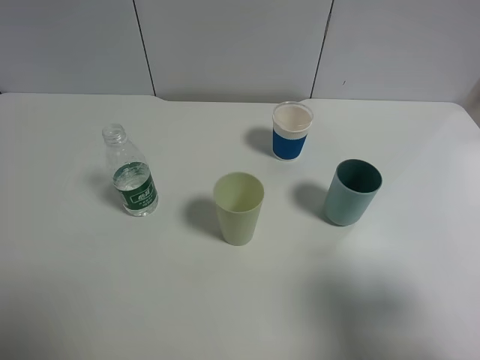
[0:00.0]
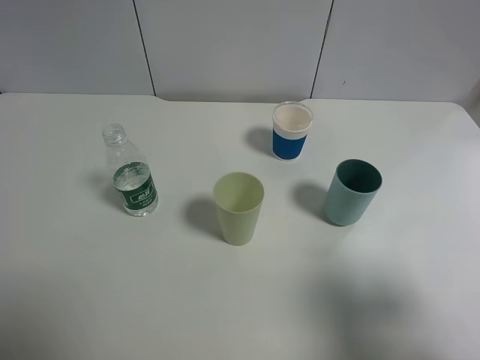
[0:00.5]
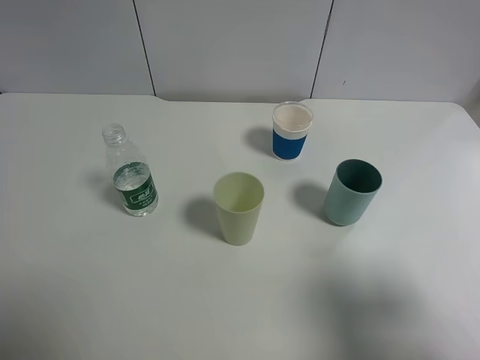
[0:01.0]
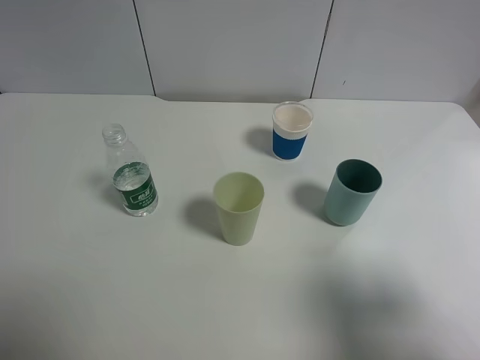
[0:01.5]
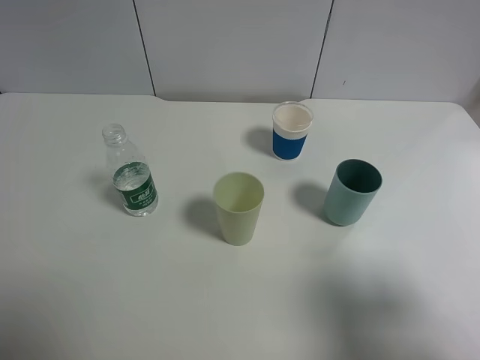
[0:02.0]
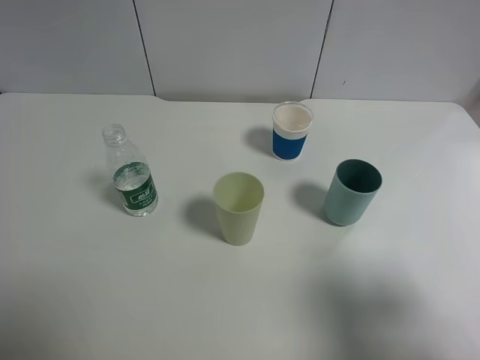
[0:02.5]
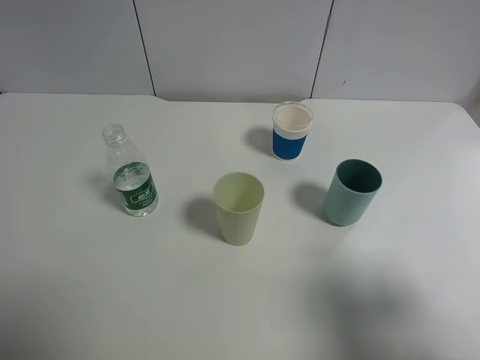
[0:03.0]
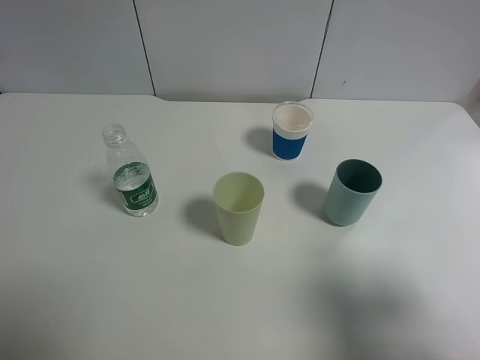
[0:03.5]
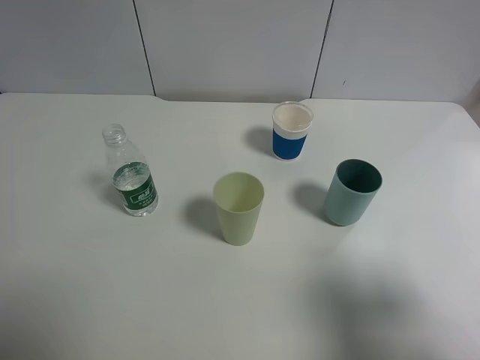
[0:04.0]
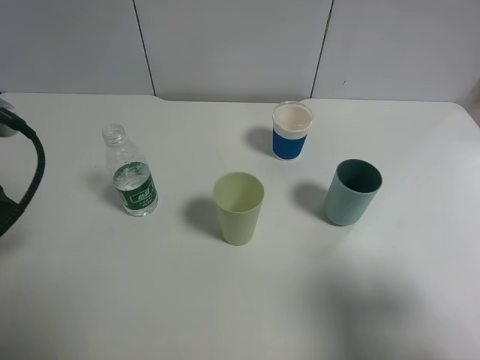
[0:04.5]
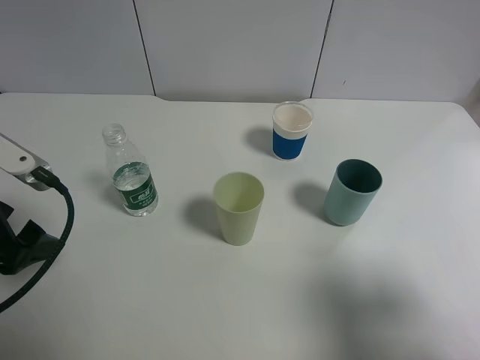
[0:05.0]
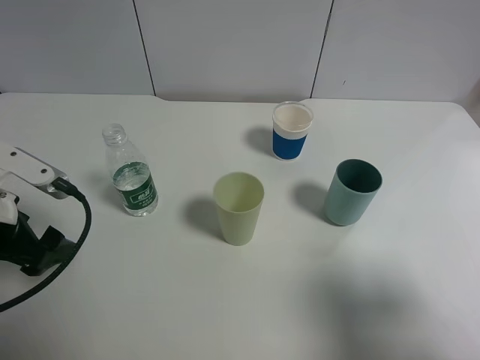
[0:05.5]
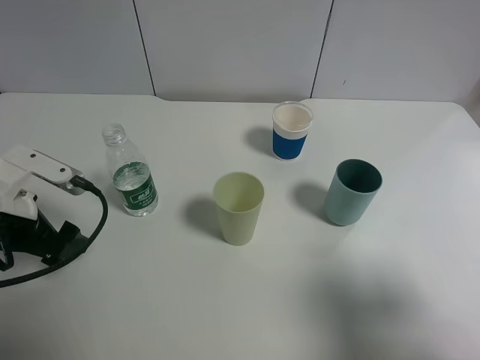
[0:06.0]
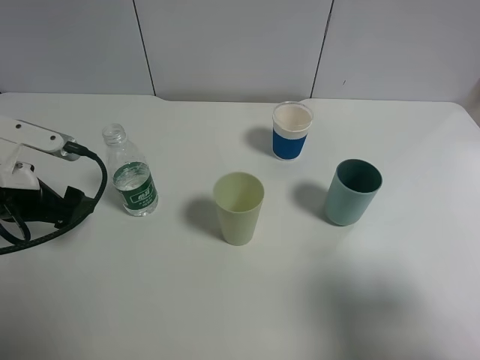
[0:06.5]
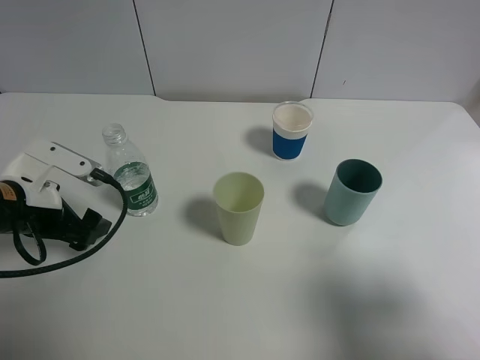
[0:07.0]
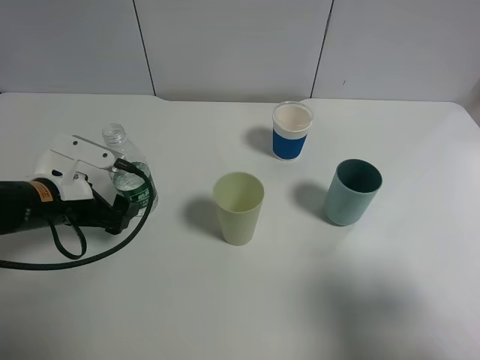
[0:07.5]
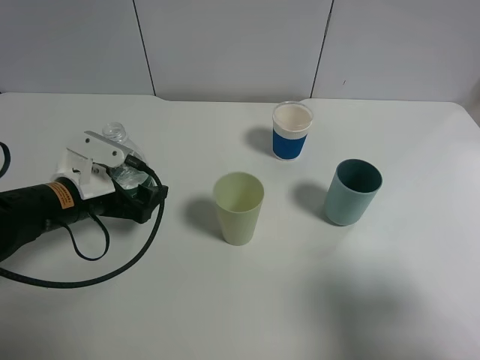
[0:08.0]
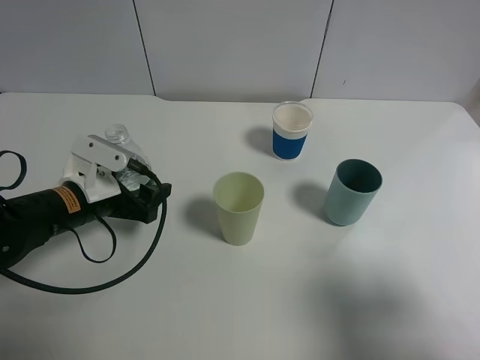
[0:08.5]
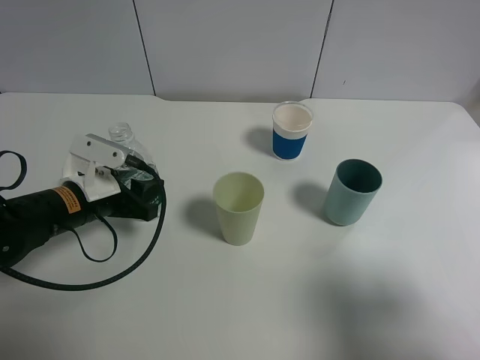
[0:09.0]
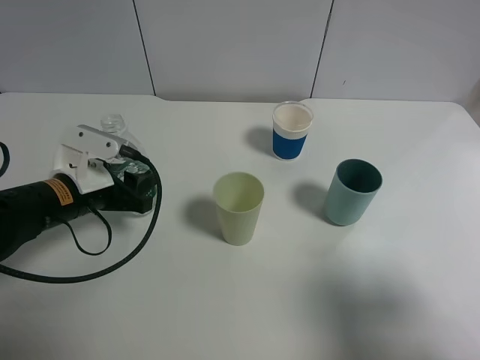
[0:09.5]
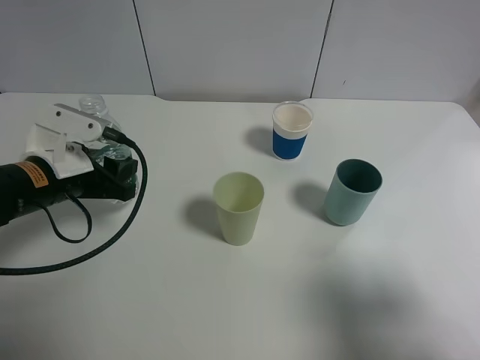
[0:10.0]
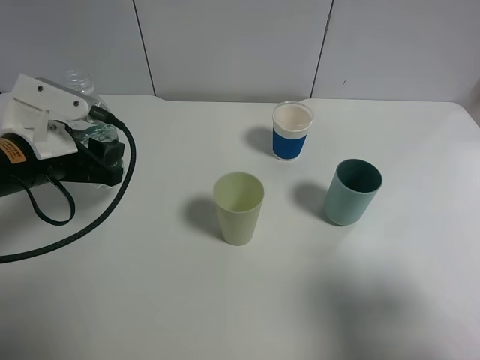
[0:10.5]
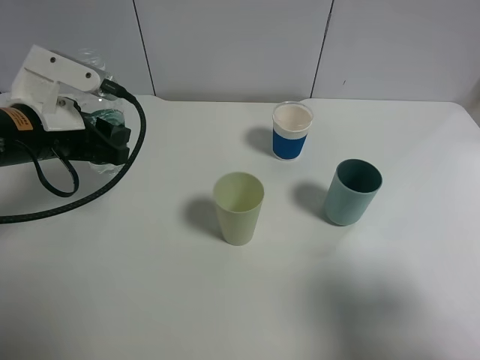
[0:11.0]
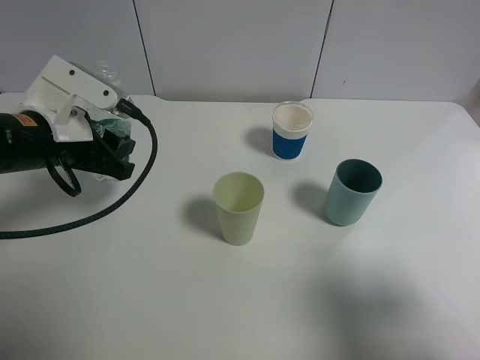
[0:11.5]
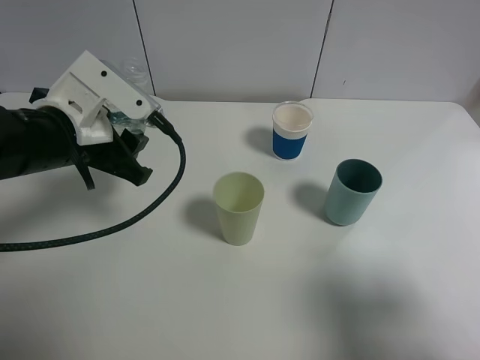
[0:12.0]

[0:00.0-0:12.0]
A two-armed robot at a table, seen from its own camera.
Task of the whole recording: use a gripper to hold the bottle of the drink and pour it into a random cup.
Step, 0:00.0 to 0:09.0: Grasp the mineral water bottle with the left gripper.
0:00.0 to 0:02.0: Both grippers stay about where they are.
0:04.0 to 0:06.0: The left gripper heads downward, covering some 15 cm.
0:06.0 to 0:08.0: The left gripper is displaced to the right by about 5 cm.
0:08.0 to 0:10.0: The left gripper closes up.
0:10.0 to 0:12.0: The left gripper is displaced upward by some 5 cm.

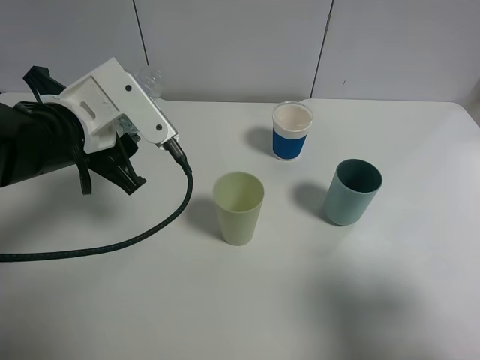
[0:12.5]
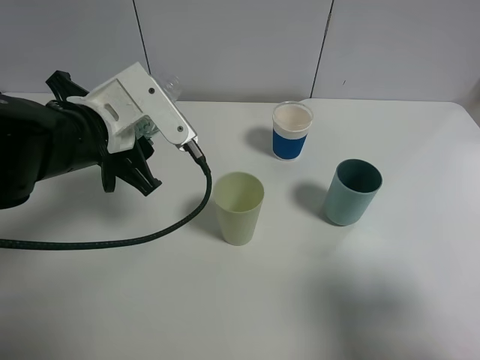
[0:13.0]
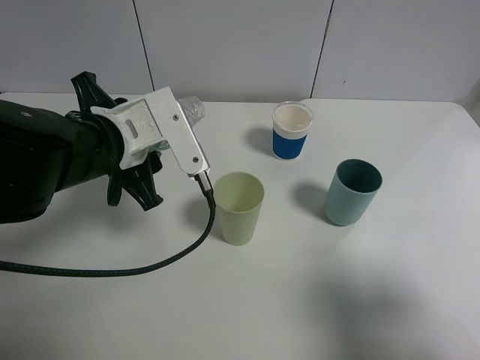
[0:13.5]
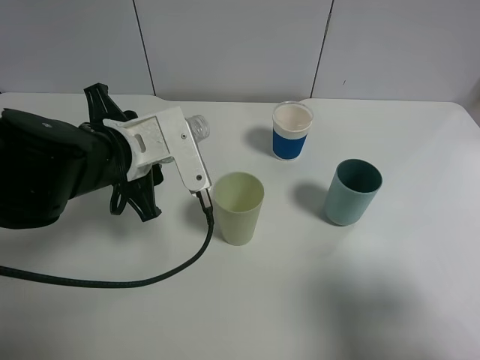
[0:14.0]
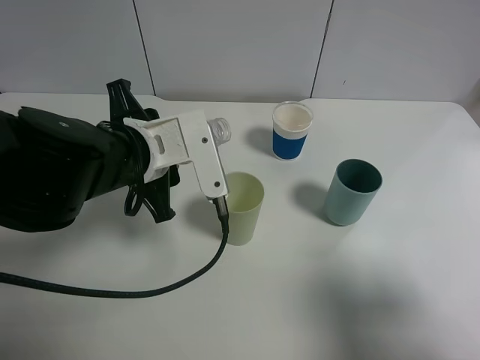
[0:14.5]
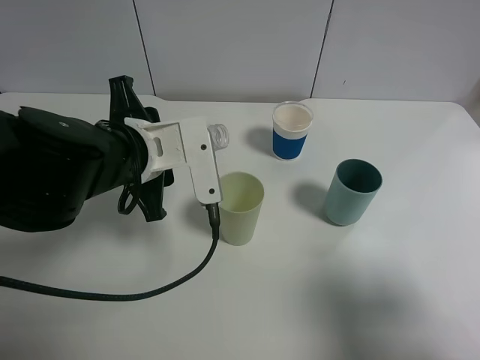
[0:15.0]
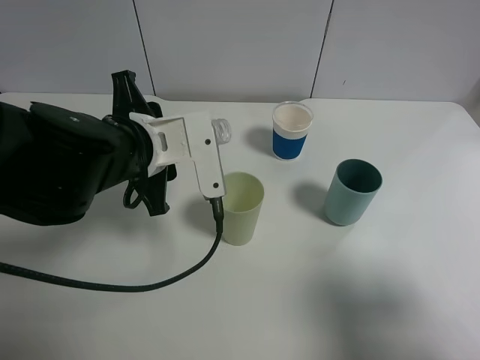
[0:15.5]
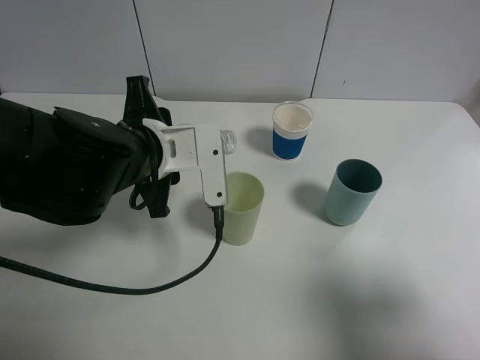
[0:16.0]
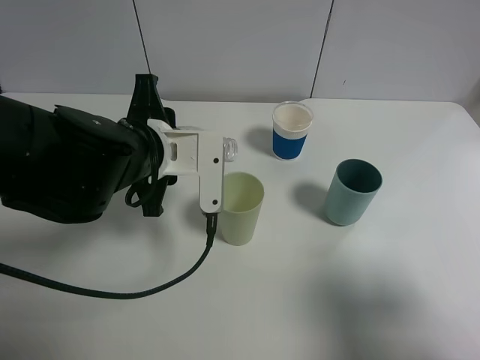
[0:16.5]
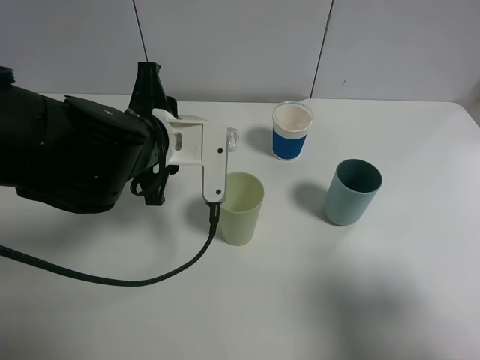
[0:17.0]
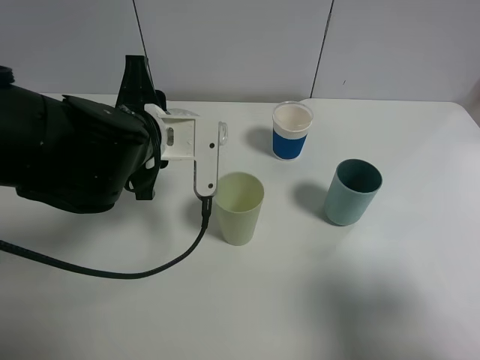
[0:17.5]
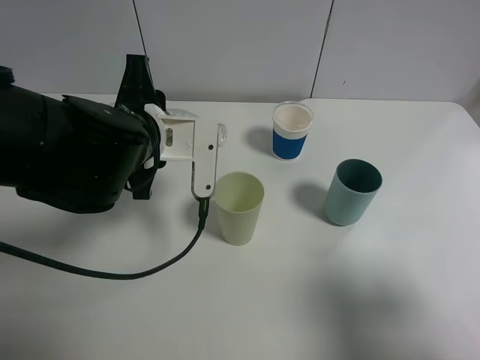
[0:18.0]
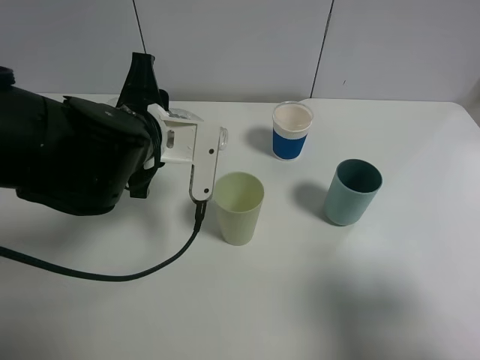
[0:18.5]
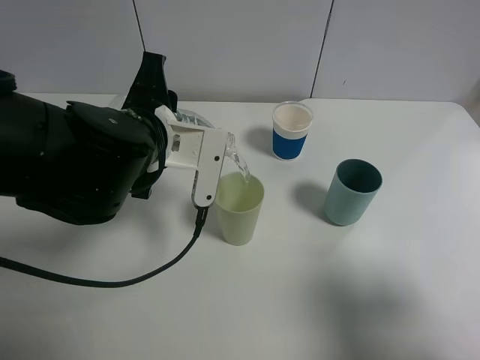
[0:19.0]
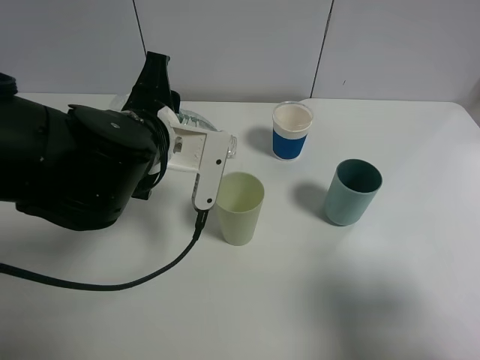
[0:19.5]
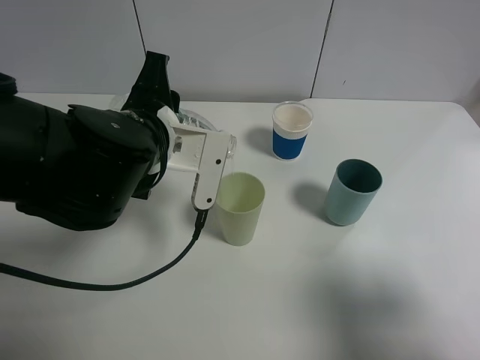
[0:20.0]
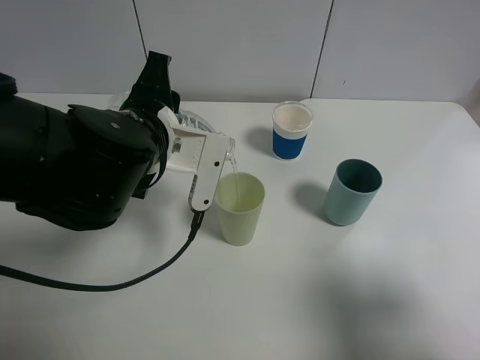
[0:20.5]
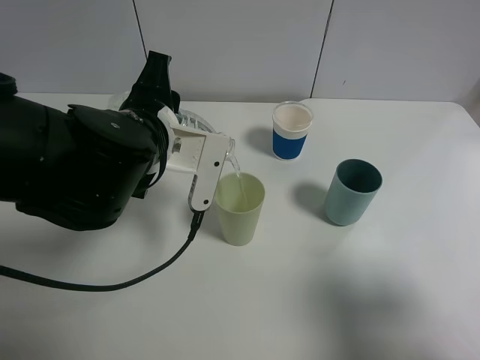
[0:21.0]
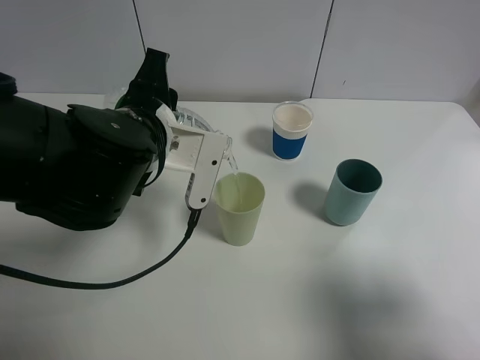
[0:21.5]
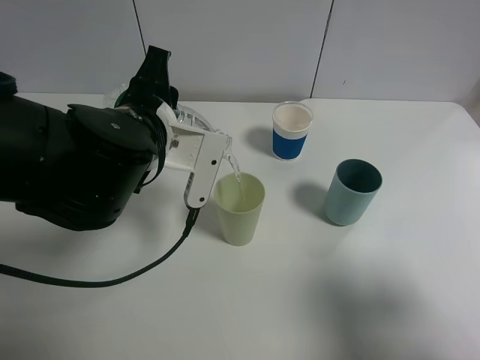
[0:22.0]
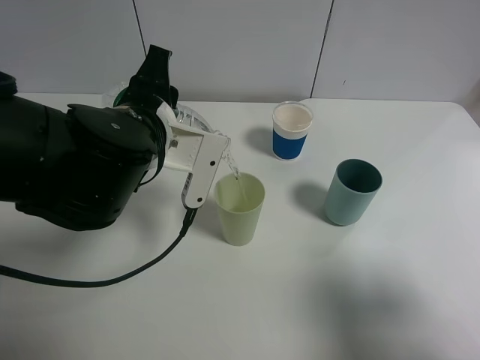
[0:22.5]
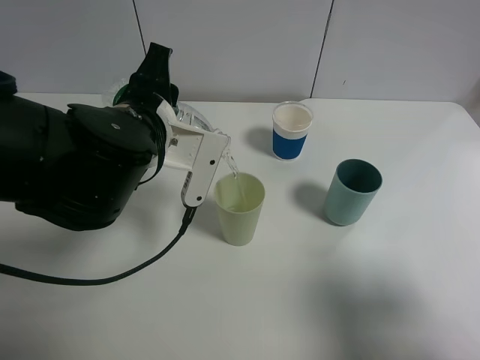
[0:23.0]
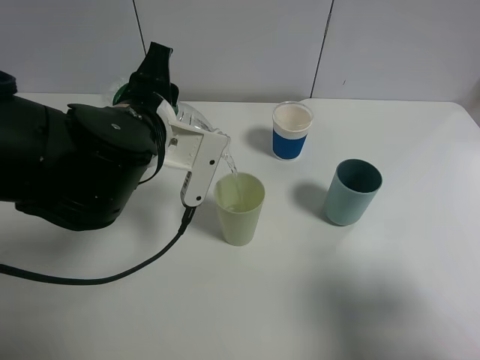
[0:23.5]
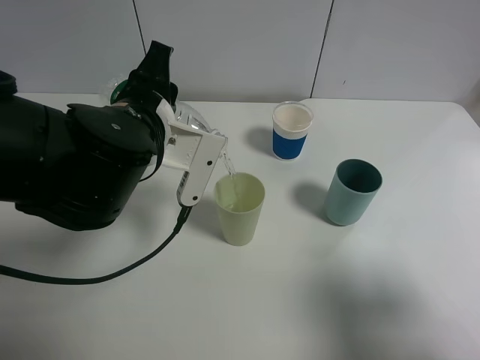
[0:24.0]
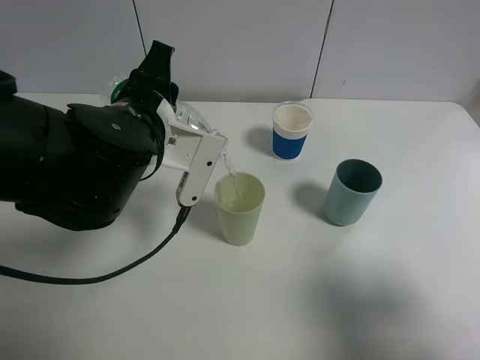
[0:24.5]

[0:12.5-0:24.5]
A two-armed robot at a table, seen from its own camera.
Task of the whole recording: use a gripper to hold the bottle of the drink and pour it into a random cup.
0:12.5 to 0:14.5: The left gripper heads to the right, covering some 5 cm.
0:14.5 to 0:16.5: There are only small adjustments of the grippers.
0:16.5 to 0:20.5: The grippers move only a little.
0:20.5 to 0:22.5: Both grippers stay about where they are.
0:22.5 to 0:24.5: Both grippers stay put.

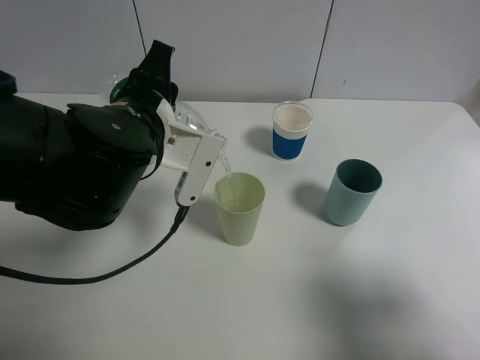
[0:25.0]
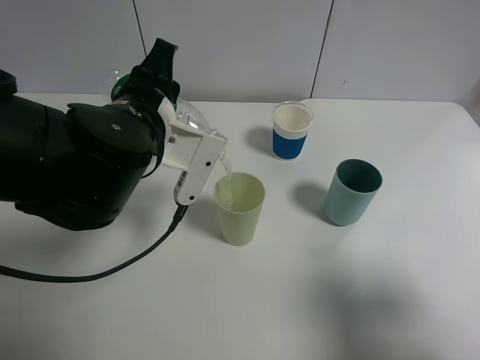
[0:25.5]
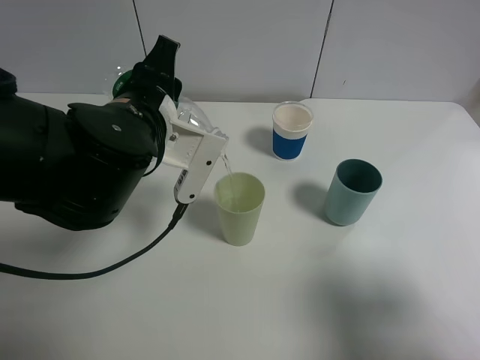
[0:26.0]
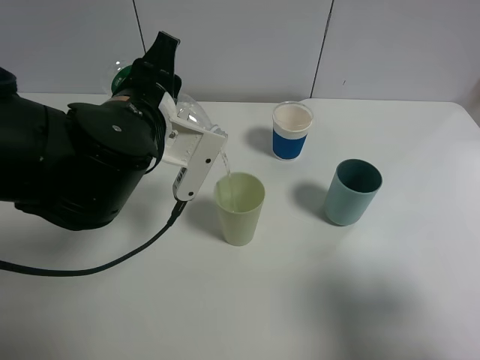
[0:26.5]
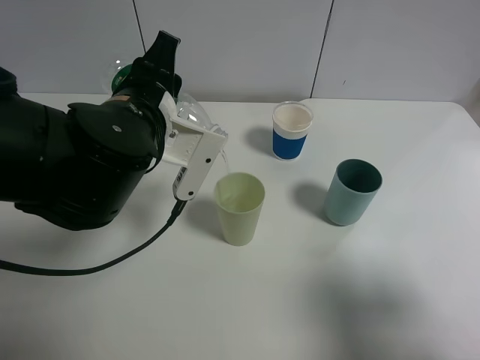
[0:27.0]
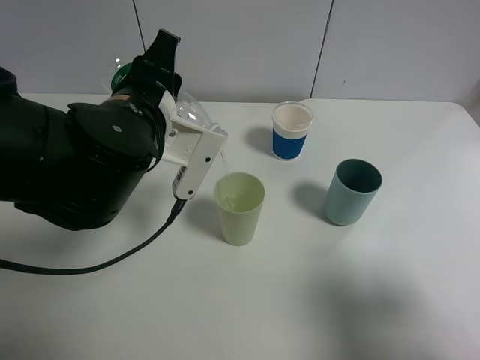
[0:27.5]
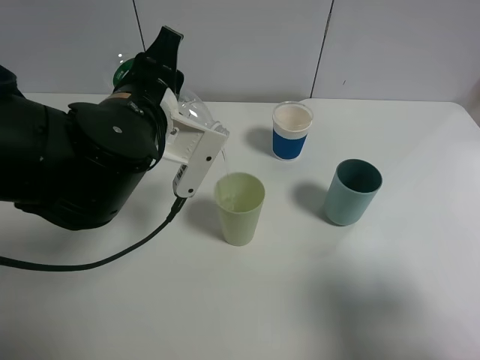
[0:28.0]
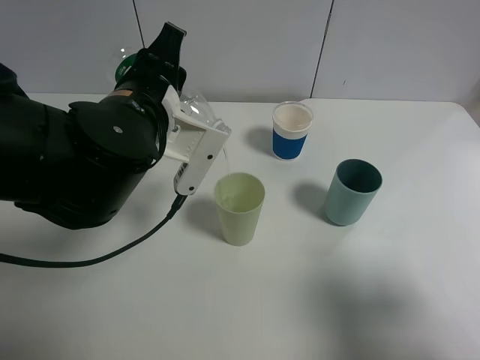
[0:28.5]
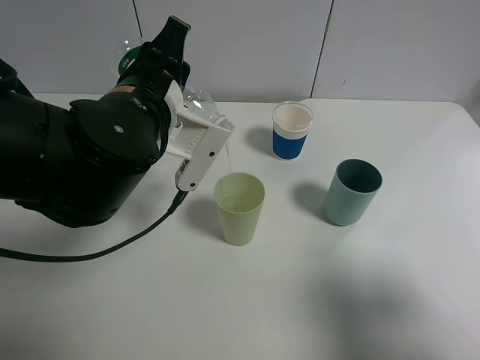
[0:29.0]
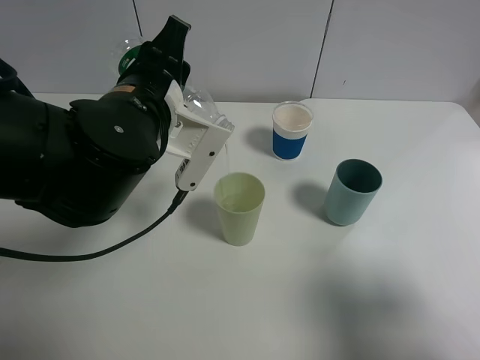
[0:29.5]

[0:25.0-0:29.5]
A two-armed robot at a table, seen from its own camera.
Task of the whole recording: use a gripper to hold the bottle of the drink and pour it into a random cup.
0:25.0 to 0:27.0: Both grippers stay about where they are.
0:27.0 to 0:29.5: The grippers stay close to where they were, moving slightly.
